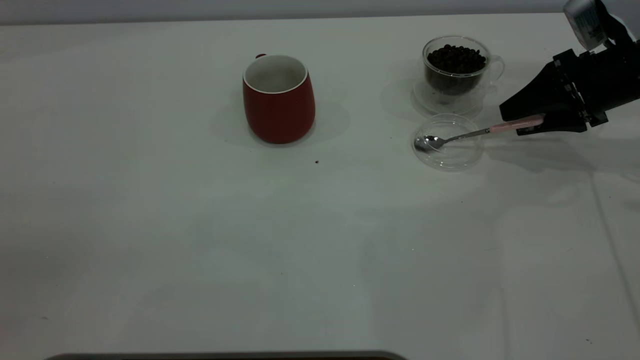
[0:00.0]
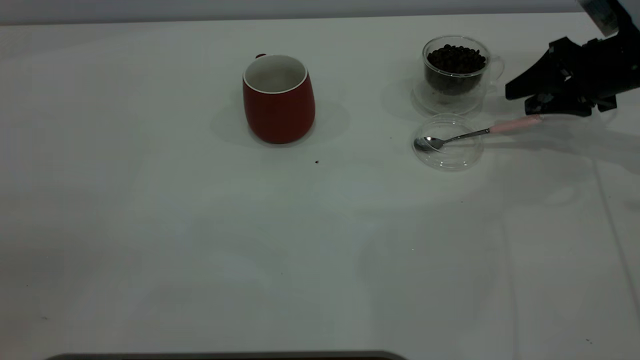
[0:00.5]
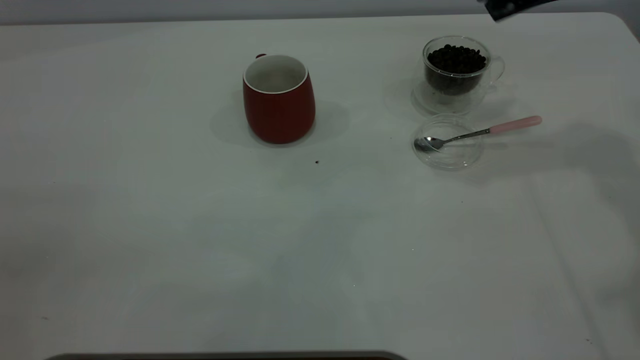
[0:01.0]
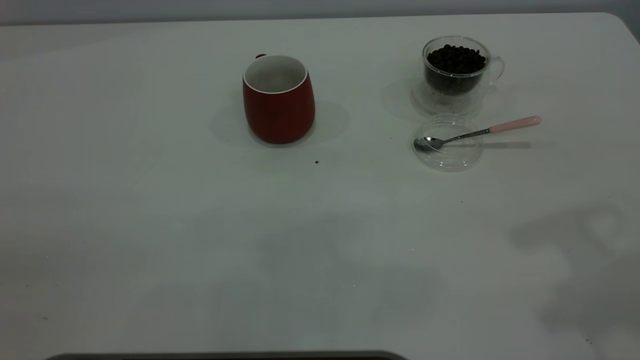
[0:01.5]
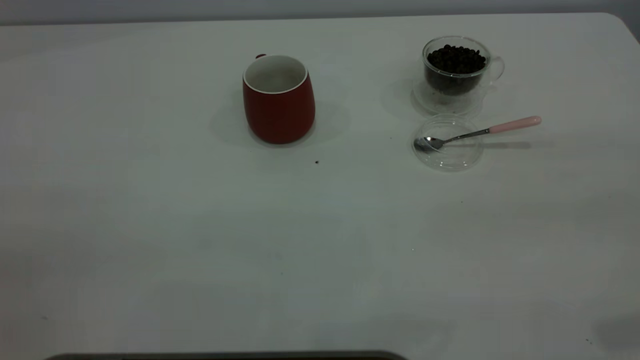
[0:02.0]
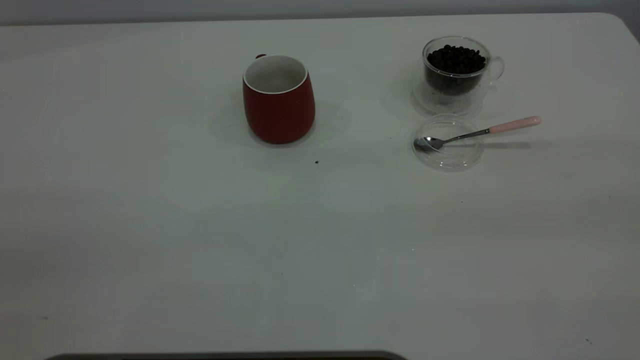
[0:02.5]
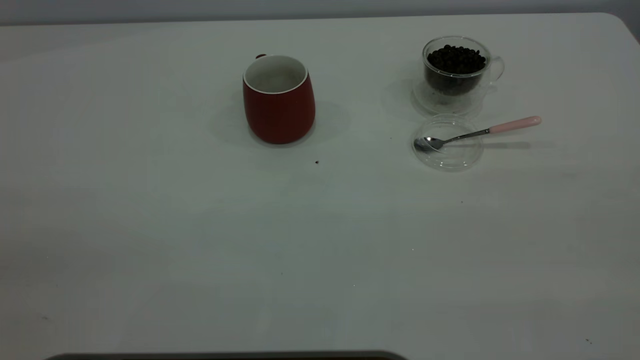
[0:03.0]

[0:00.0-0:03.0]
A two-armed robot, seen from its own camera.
Task of the whole recording: the left gripper place the red cup in the center of the table, the right gripper take the pink spoon from the cup lid and scoop out the coffee beans from the coffee cup and put them into the red cup, the right gripper put the spoon back into the cup lid.
0:00.0 to 0:01.5: The right gripper heads upward and backward, covering approximately 30 cm.
